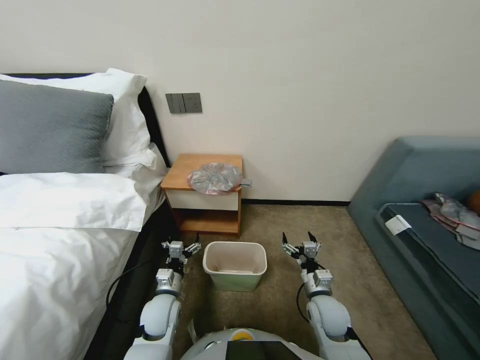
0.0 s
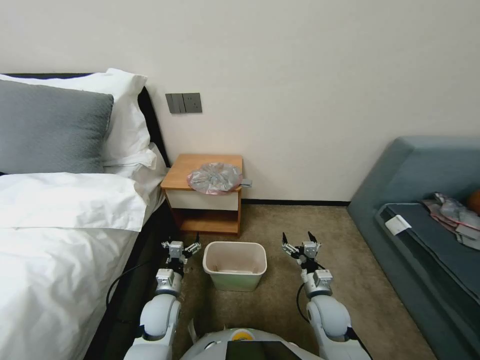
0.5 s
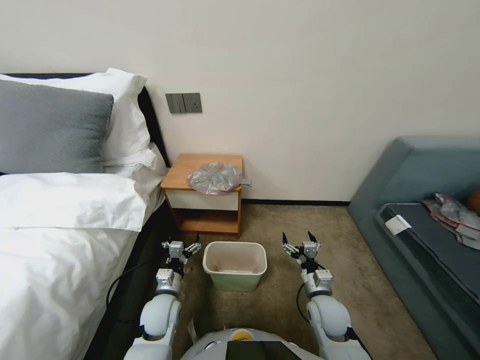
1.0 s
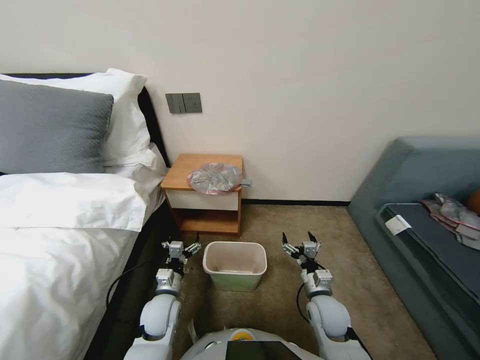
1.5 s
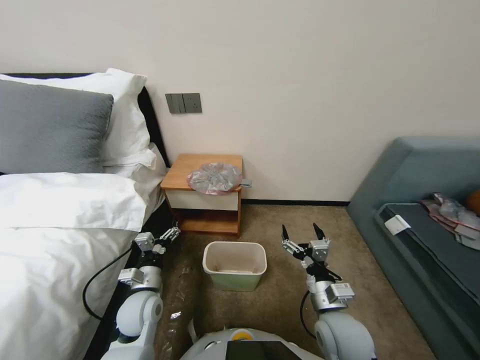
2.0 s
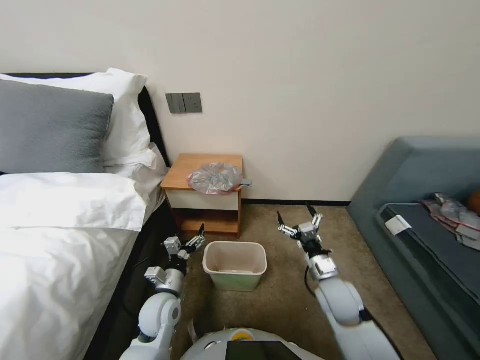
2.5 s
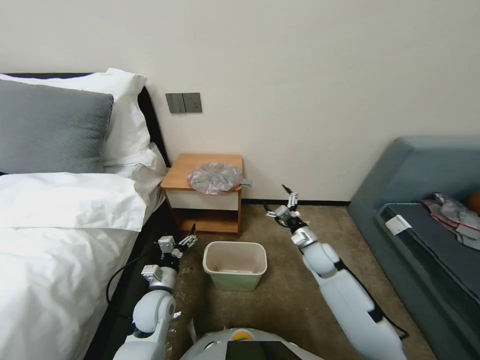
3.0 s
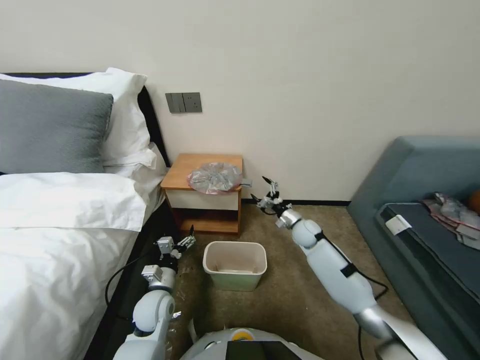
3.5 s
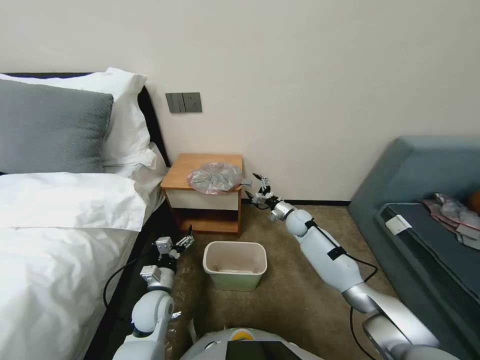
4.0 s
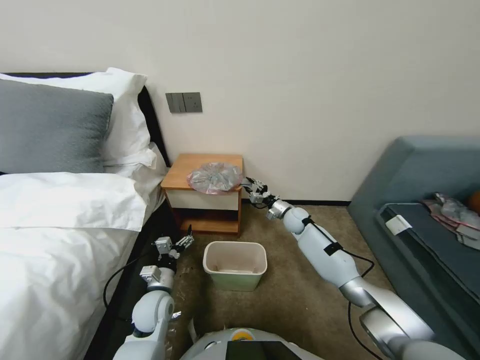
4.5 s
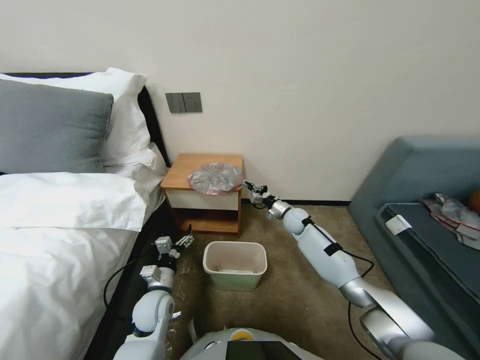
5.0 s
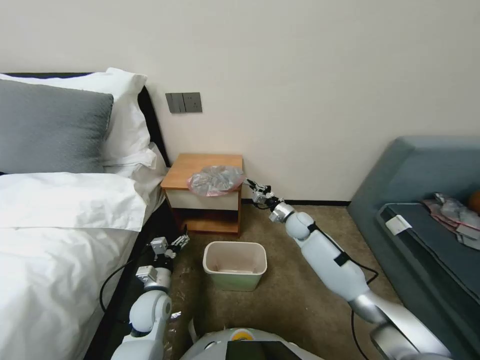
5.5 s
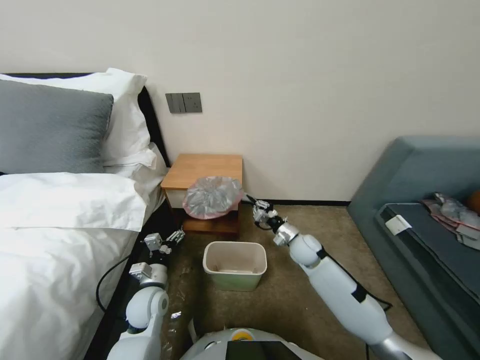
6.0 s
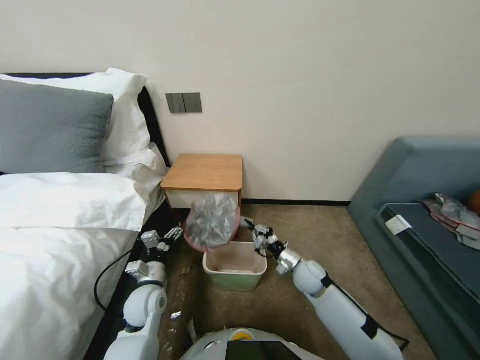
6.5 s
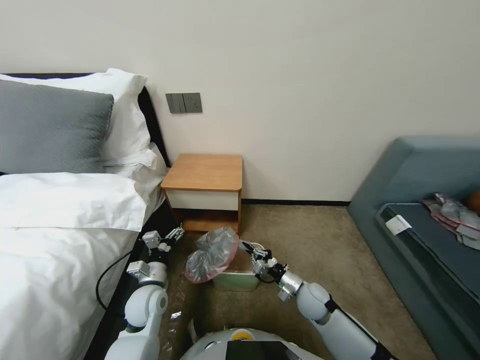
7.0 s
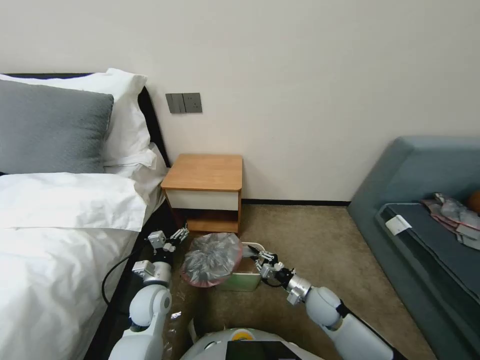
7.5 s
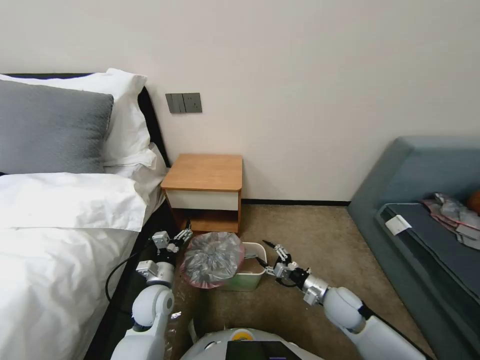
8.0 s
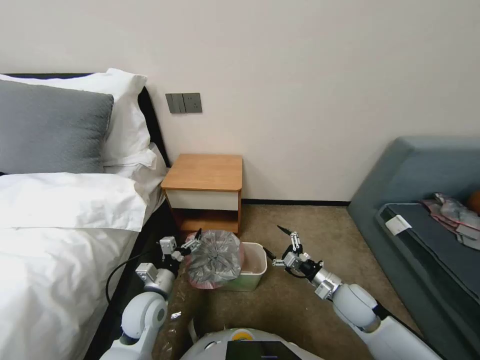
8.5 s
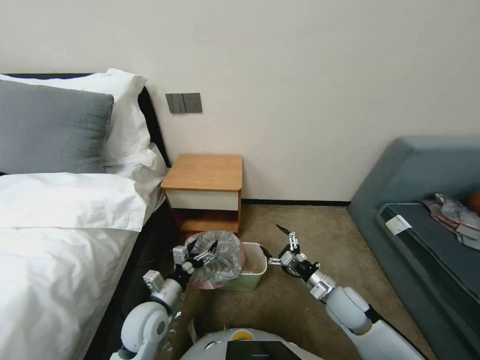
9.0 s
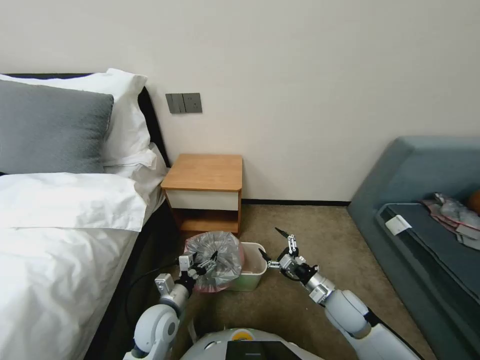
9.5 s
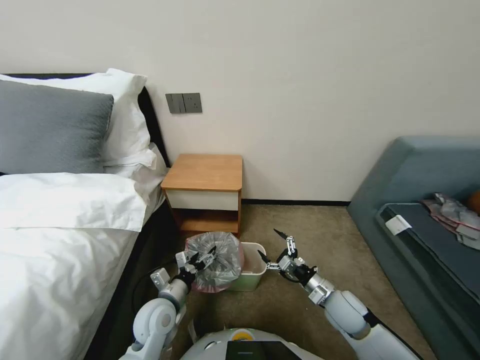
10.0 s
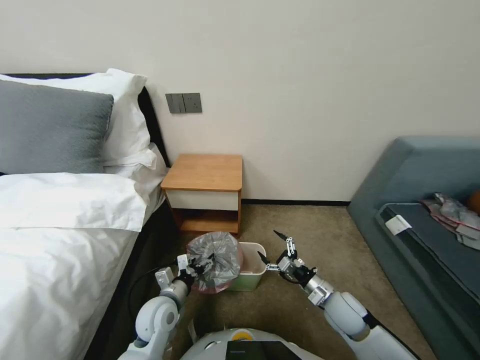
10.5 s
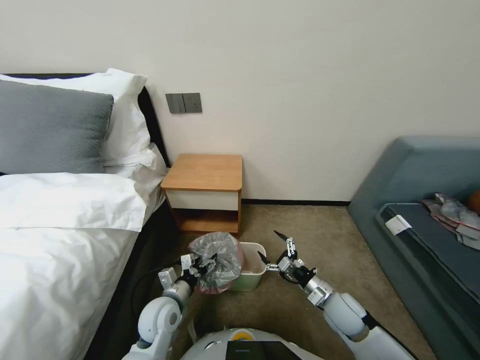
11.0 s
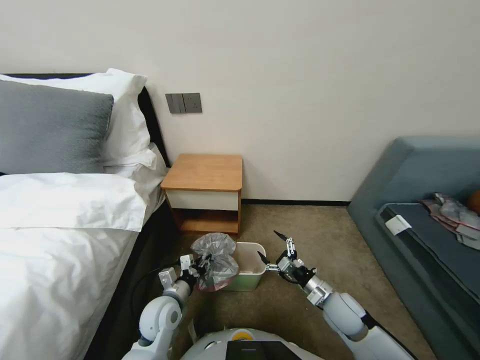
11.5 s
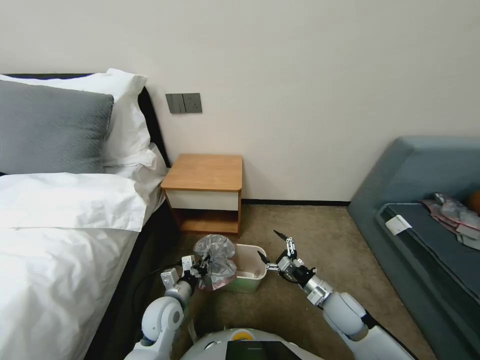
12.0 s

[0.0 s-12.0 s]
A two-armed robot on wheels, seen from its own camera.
Task of the whole recording: Pick up the garbage bag from the table and place it over the trash can.
2.0 to 4.0 s: The right gripper shifts approximately 35 cm forward.
4.0 to 6.0 s: The right gripper shifts about 10 cm backward, and closes its fingers.
6.0 to 8.0 s: The right gripper shifts about 15 cm backward, and opens.
8.0 to 10.0 s: The right gripper opens its fingers.
10.0 to 12.0 s: The left gripper closes up.

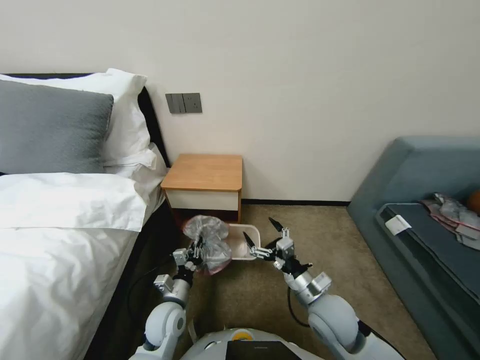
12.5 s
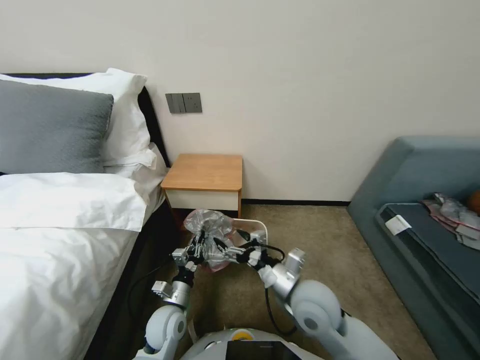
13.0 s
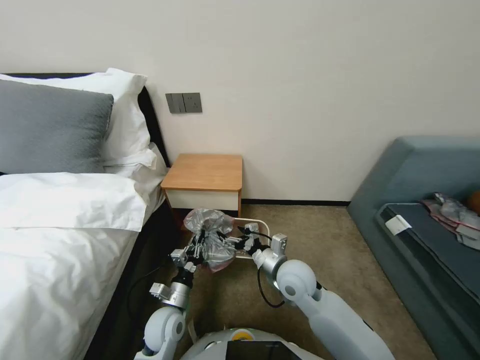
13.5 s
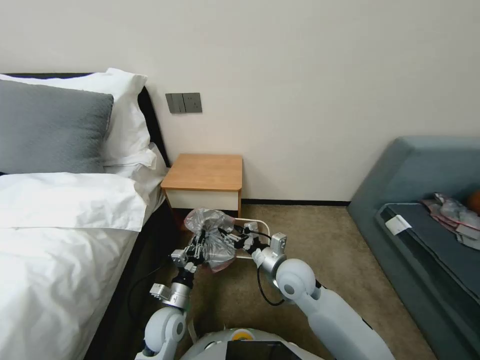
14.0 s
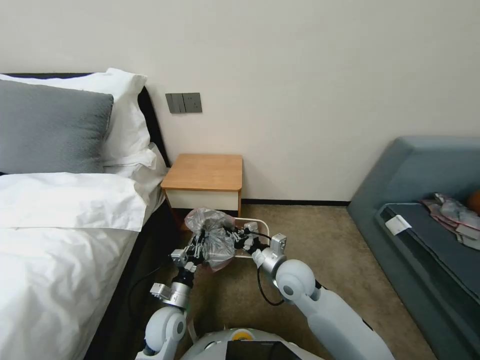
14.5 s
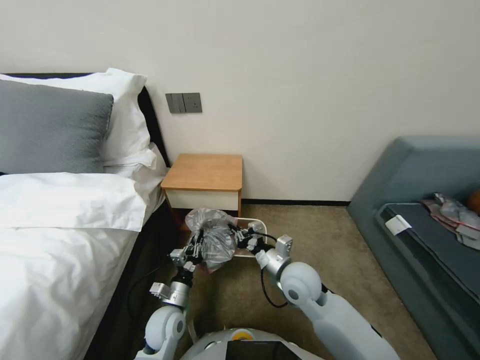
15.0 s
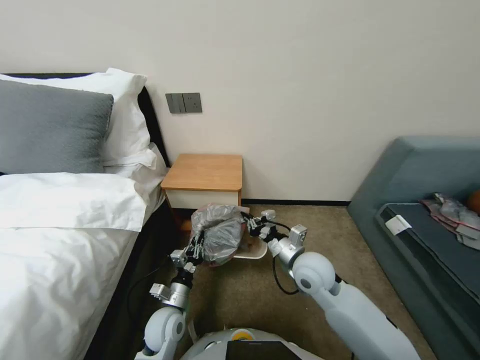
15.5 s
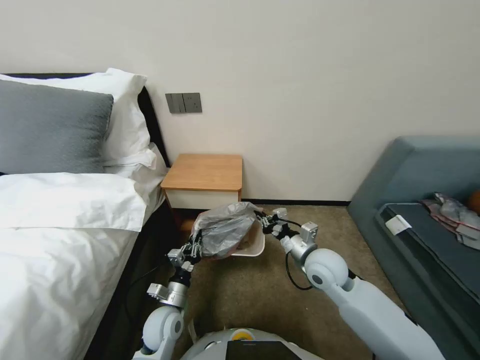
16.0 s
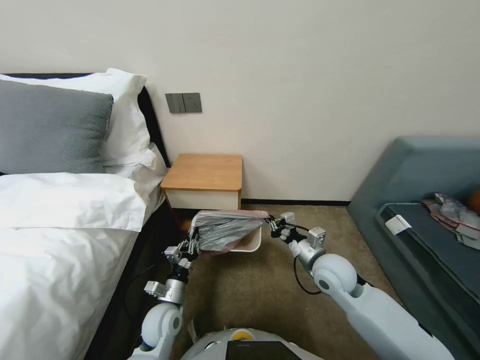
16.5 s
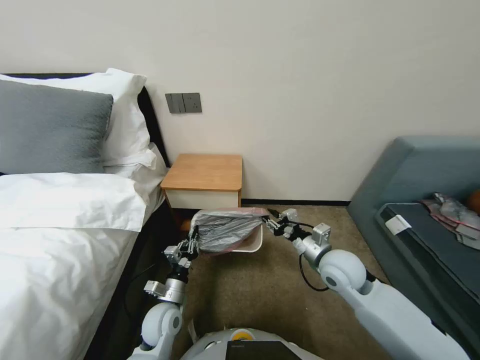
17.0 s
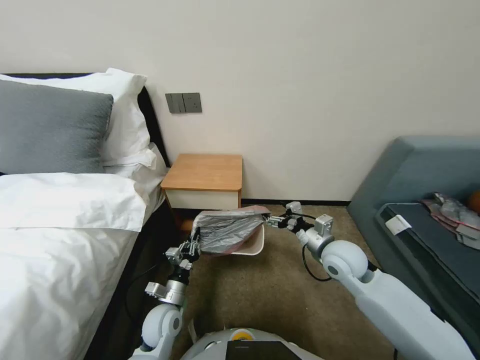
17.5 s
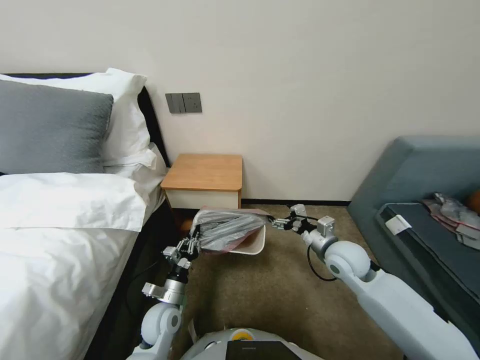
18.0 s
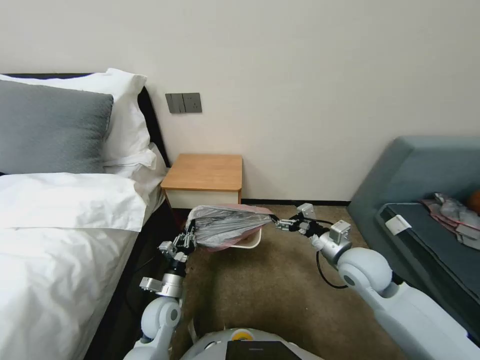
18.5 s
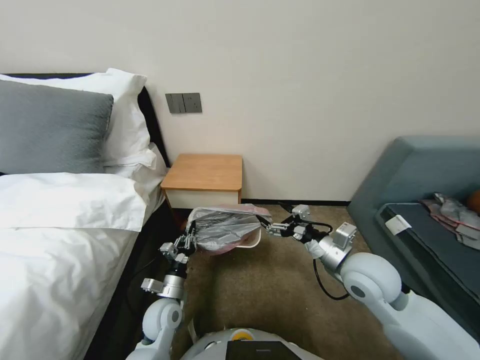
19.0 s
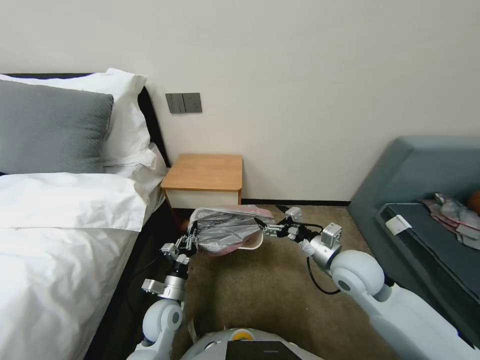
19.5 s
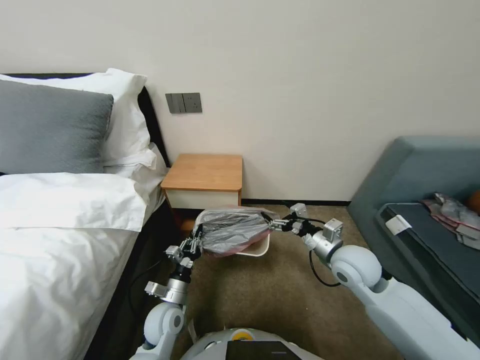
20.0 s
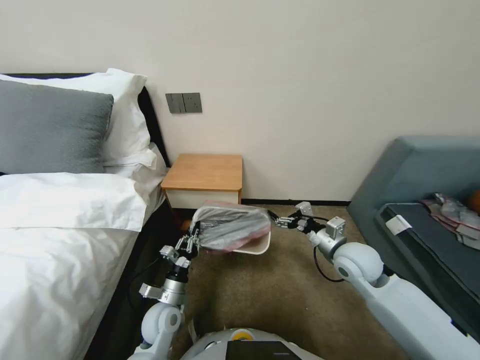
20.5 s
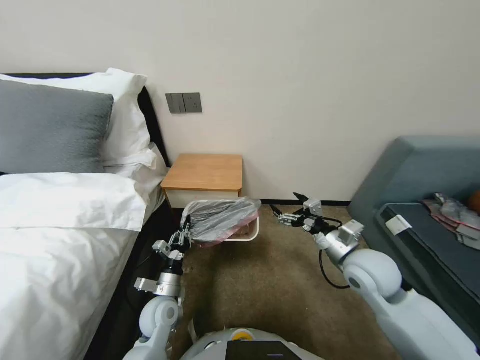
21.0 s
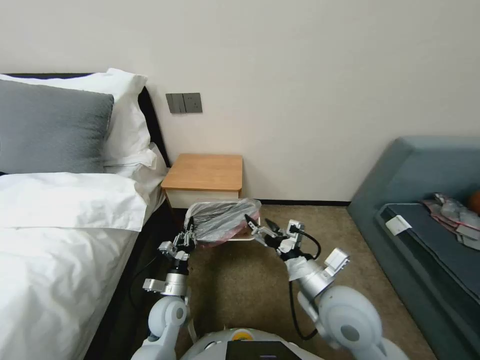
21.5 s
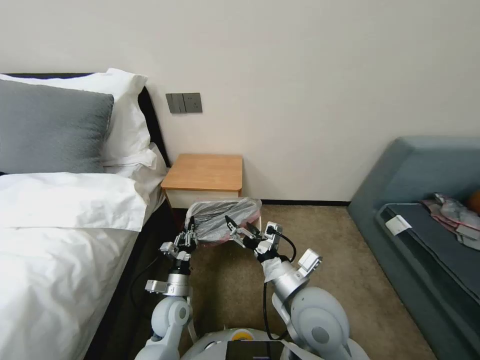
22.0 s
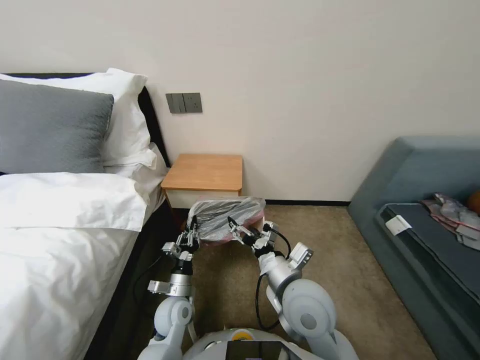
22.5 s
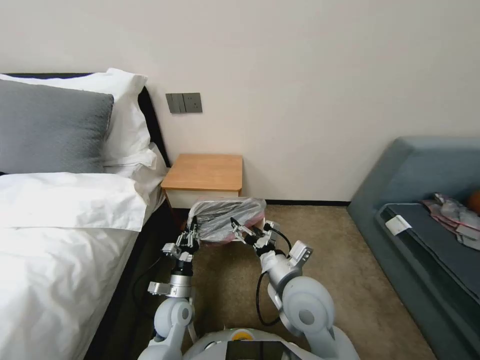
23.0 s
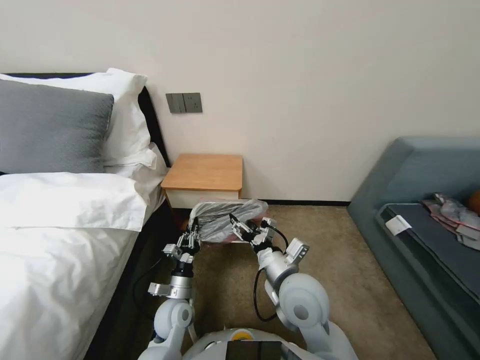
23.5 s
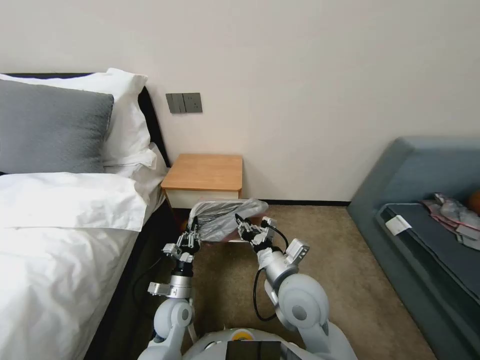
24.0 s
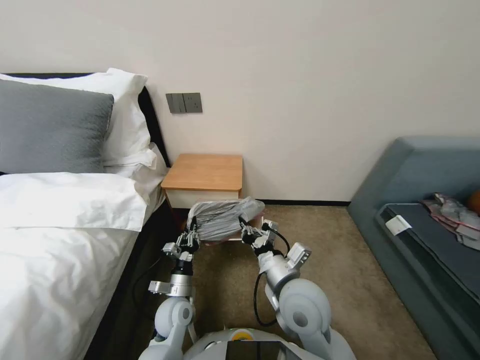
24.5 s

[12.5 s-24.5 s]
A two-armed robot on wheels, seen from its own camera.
Task of the whole recording: Pick up the garbage bag from the table and place it over the trash can.
12.5 to 14.5 s: The right gripper moves to the left, forward and upward, roughly 15 cm, and closes its fingers.
14.5 to 16.5 s: The right gripper moves to the right, about 10 cm.
16.5 to 18.5 s: The right gripper shifts by some 5 cm, and opens its fingers.
18.5 to 20.5 s: The grippers move only a little.
20.5 to 22.5 s: The right gripper moves to the left and backward, some 20 cm.
22.5 to 24.5 s: The right gripper closes.

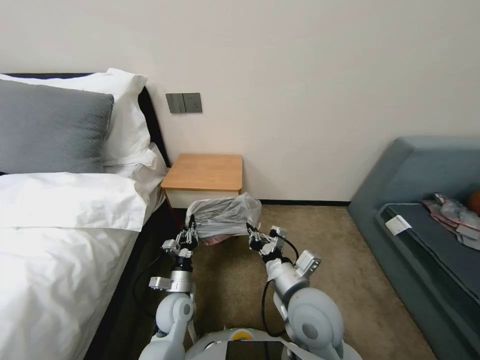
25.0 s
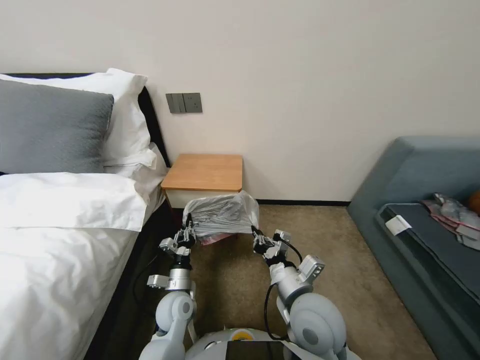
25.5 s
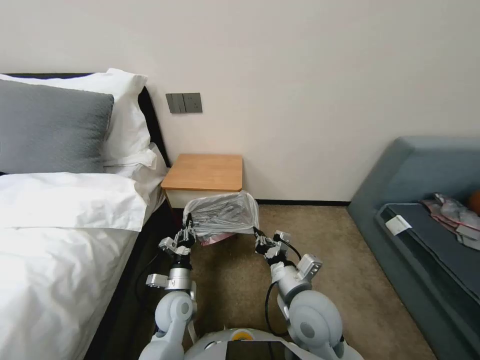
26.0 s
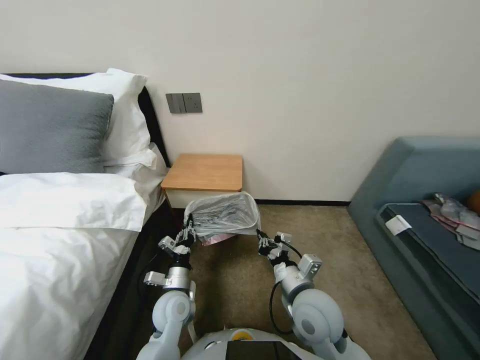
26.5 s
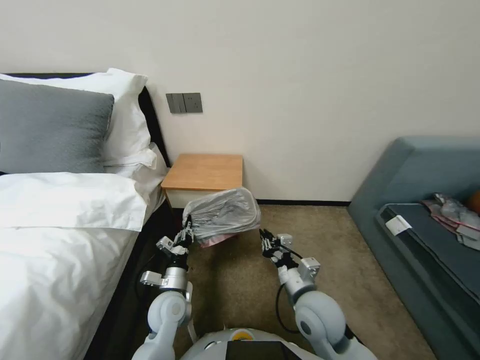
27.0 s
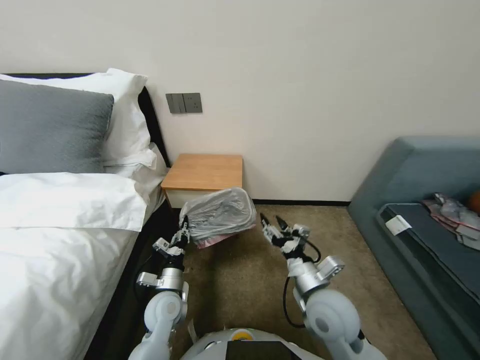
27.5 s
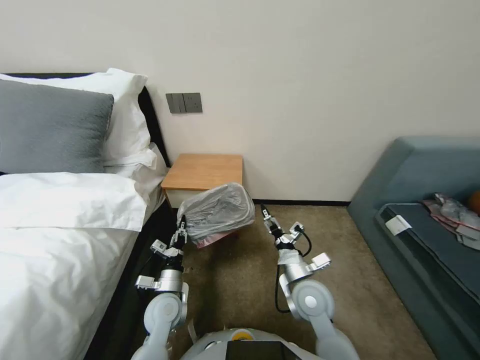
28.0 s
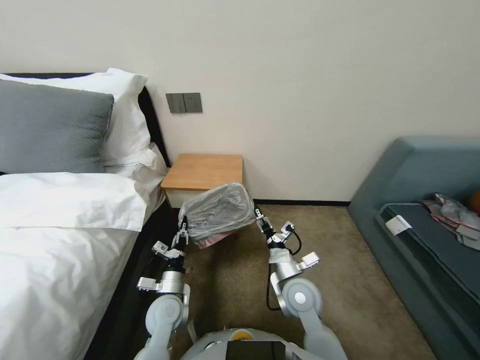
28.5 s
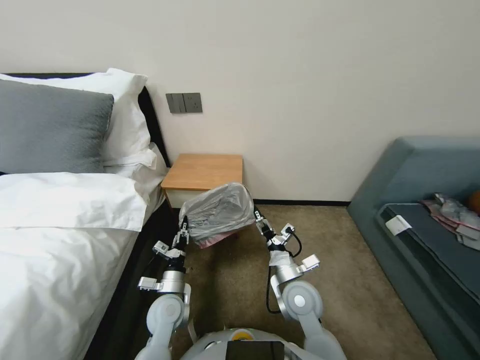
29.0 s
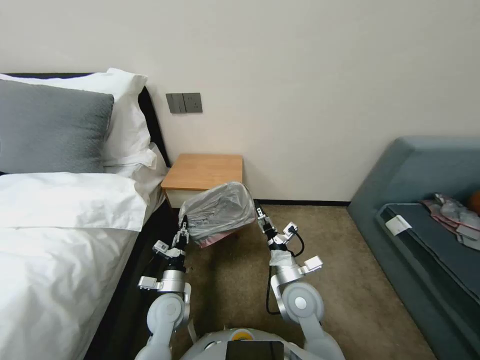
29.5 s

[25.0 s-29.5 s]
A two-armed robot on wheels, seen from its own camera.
Task of the whole recording: Pick up the garbage bag from the table and place it over the trash can.
25.0 to 27.0 s: The right gripper shifts about 5 cm downward.
27.0 to 29.5 s: The right gripper opens.
